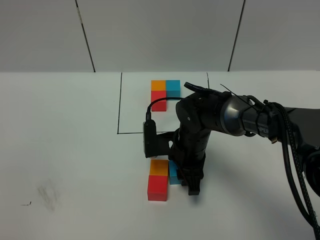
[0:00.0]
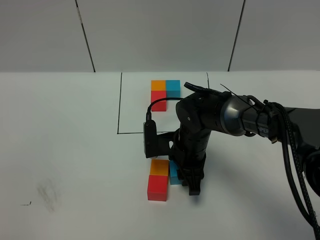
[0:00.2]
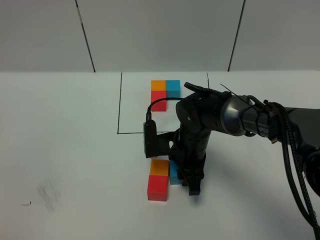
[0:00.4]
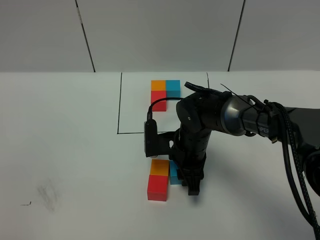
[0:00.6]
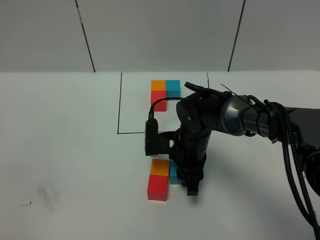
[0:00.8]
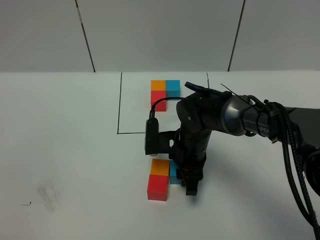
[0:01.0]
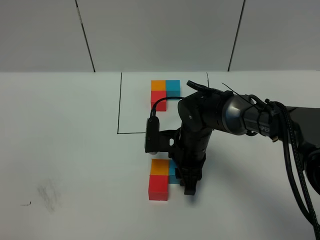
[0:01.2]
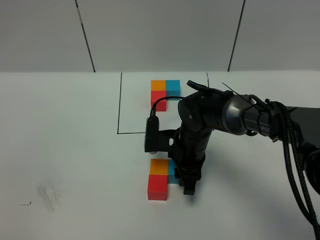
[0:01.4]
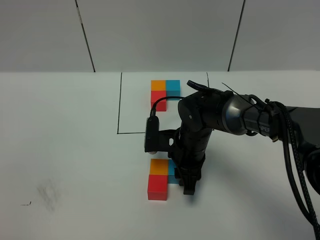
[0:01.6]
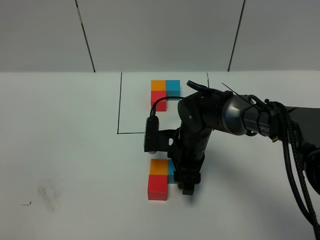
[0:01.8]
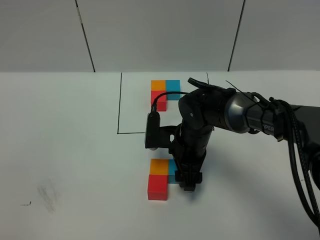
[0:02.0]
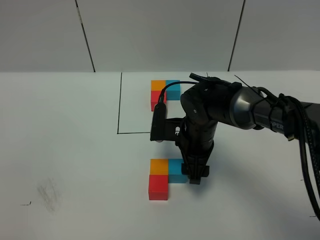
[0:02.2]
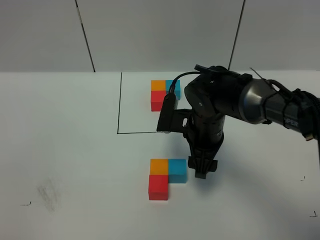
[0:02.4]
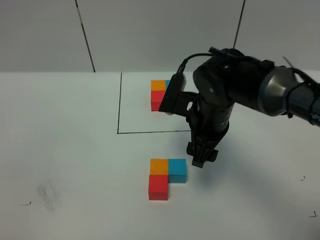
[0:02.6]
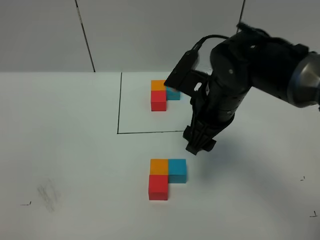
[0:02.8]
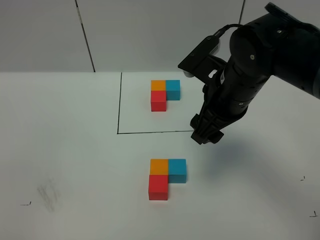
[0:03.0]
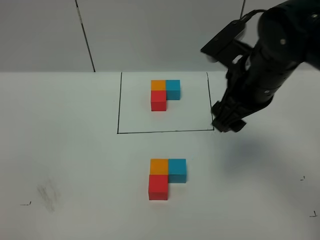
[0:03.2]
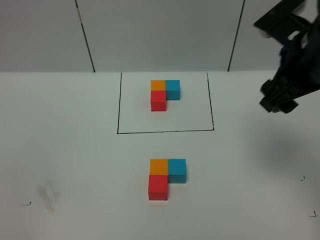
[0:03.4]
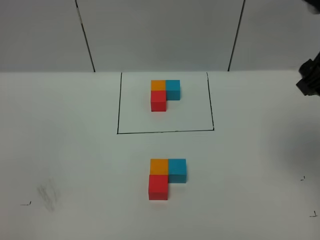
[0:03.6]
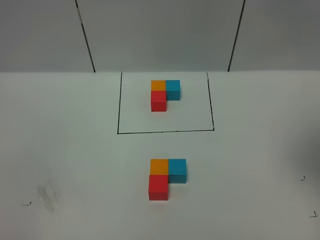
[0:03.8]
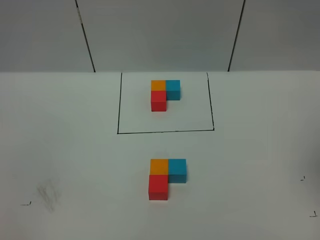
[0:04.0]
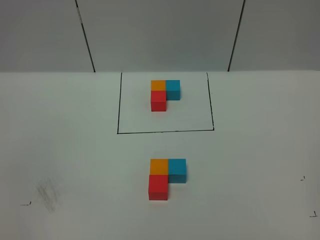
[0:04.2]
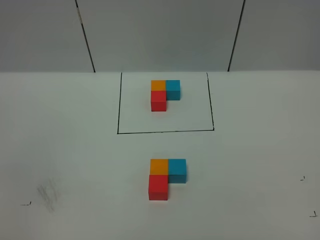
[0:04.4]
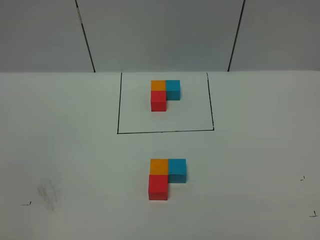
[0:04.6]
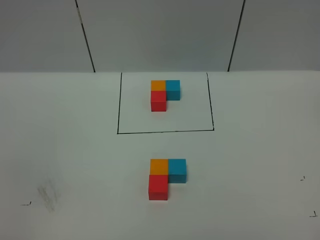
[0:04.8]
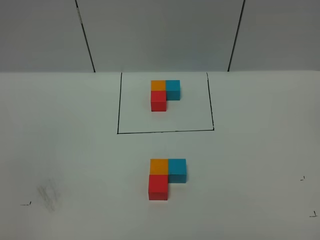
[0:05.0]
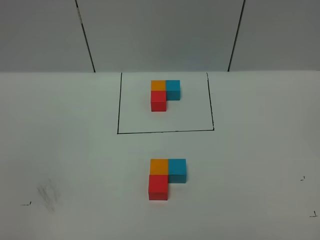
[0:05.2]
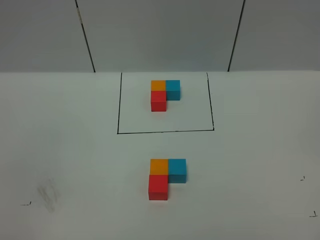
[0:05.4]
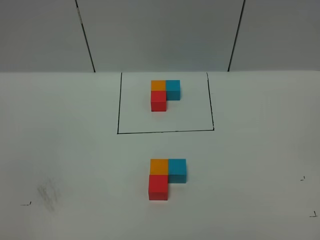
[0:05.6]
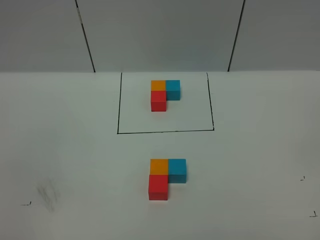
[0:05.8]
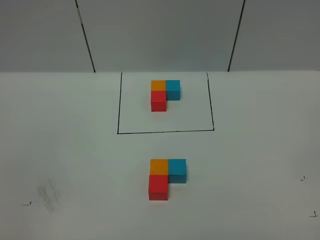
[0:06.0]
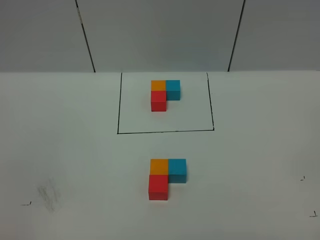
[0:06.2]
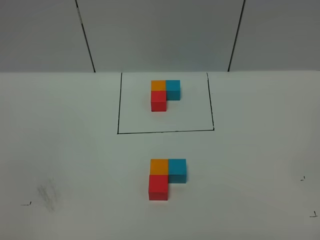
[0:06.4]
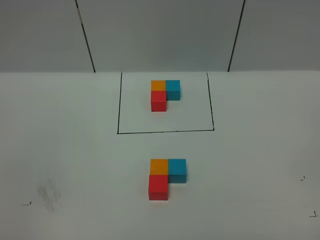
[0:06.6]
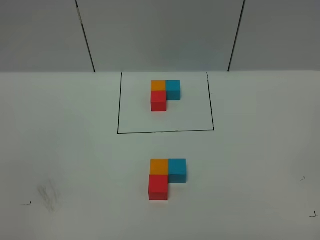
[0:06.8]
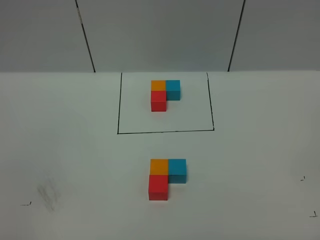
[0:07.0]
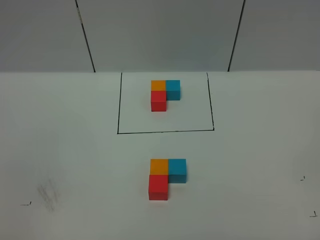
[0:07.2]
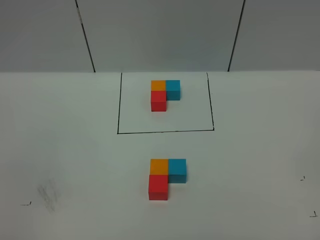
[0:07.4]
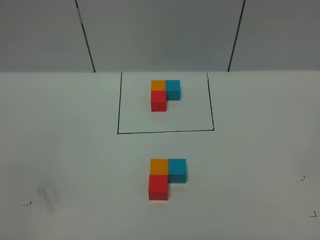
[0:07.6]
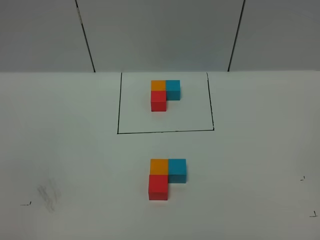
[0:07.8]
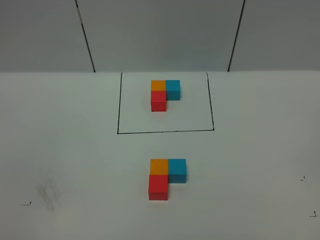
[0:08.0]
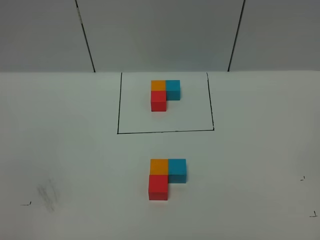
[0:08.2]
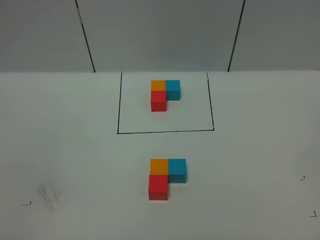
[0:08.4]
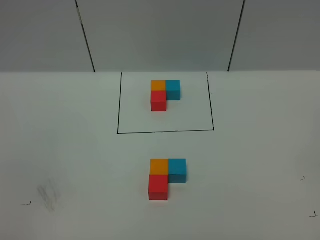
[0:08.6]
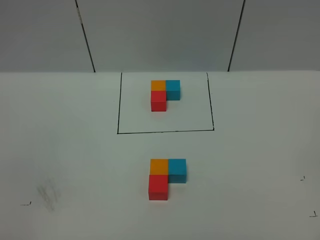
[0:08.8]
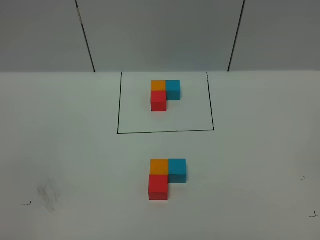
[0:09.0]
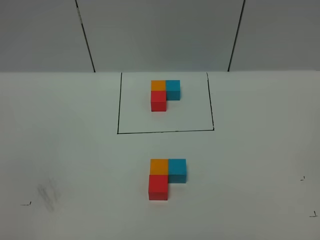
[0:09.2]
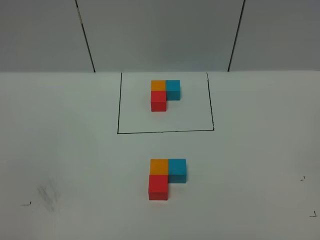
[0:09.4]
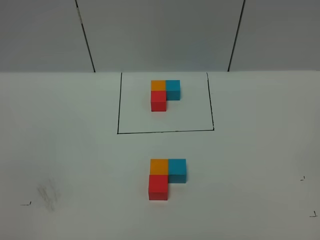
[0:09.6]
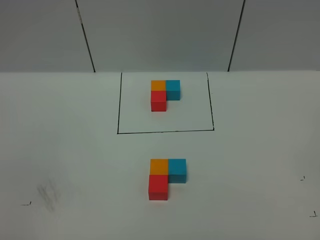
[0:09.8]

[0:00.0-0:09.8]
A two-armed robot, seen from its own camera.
Task of the whole recording: According to the building block template in front, assemble the scattered blocks together.
Step, 0:00.0 to 0:02.4: Put the blue cube on the right of the orange cube.
0:00.0 to 0:01.4: The grippers stay close to where they were, moving slightly.
0:01.4 to 0:02.8: The right gripper shifts roughly 15 cm upward, and opens up.
0:02.8 to 0:04.2: The right gripper goes some 35 cm upward, to the right and backward.
0:08.4 to 0:09.8: Both grippers stay about where they are.
